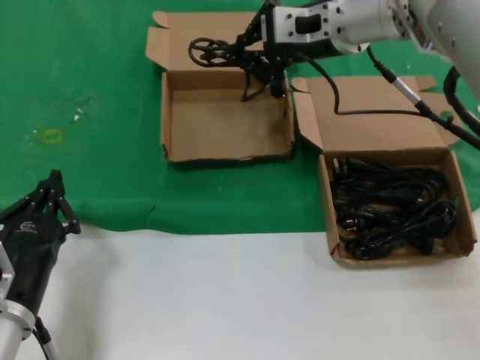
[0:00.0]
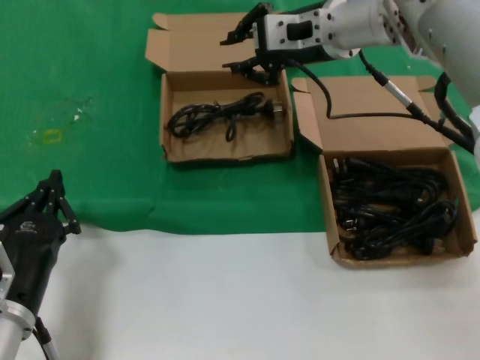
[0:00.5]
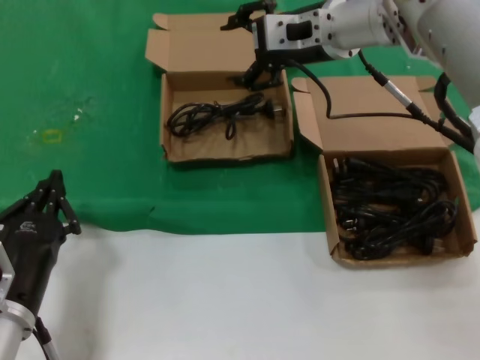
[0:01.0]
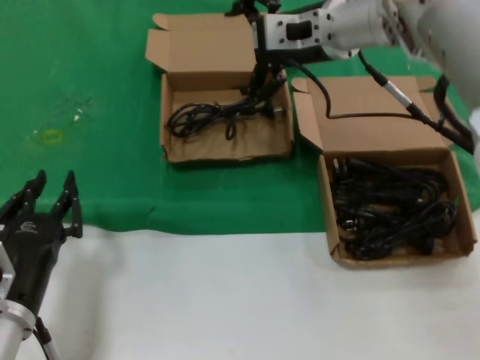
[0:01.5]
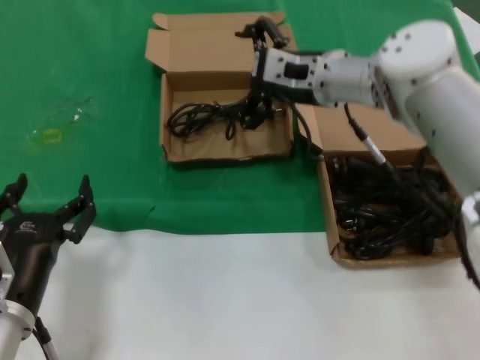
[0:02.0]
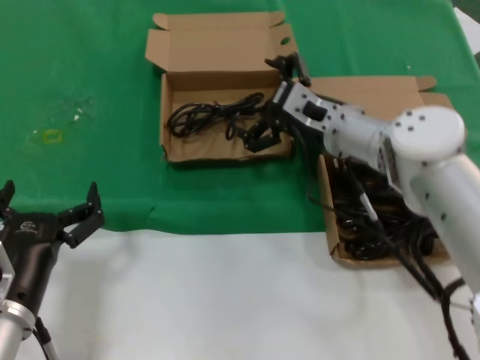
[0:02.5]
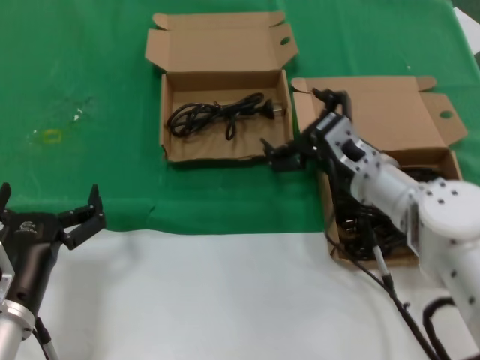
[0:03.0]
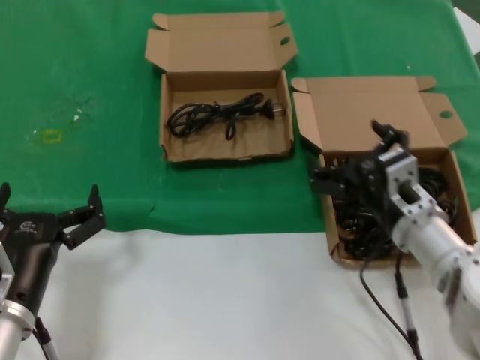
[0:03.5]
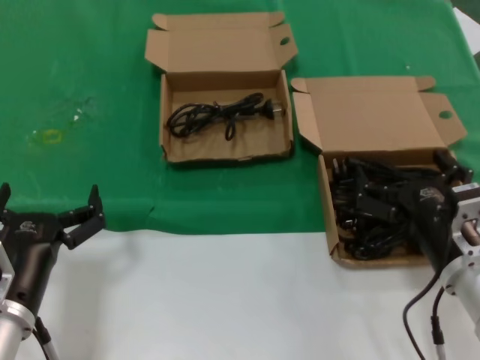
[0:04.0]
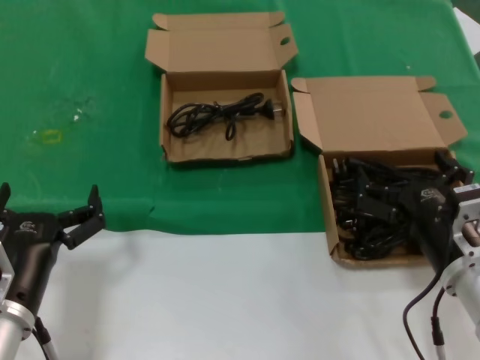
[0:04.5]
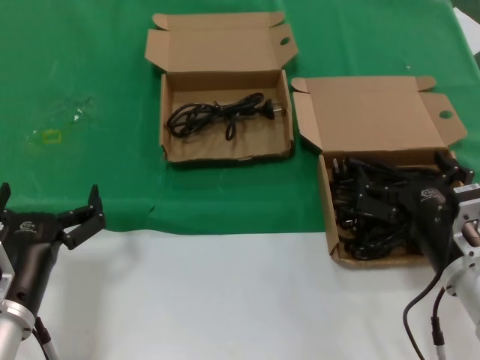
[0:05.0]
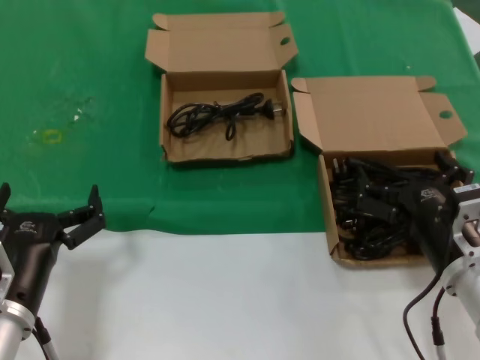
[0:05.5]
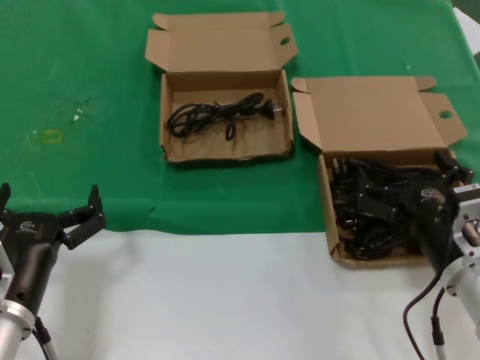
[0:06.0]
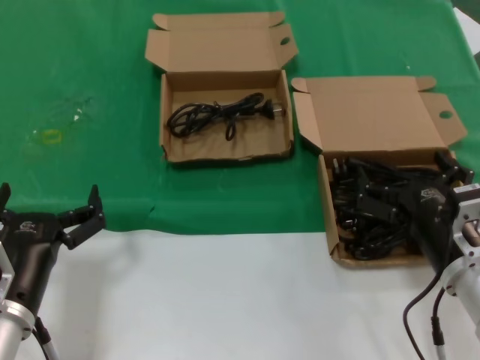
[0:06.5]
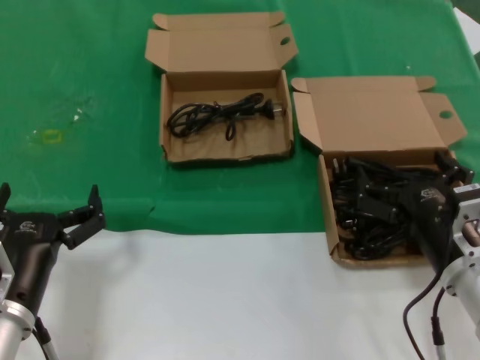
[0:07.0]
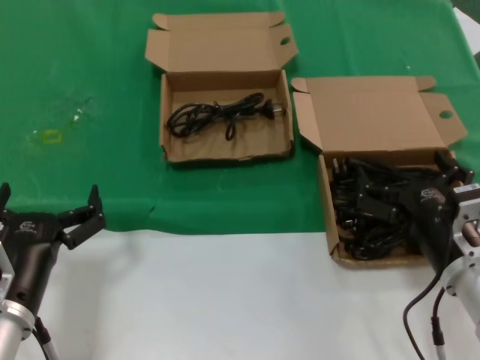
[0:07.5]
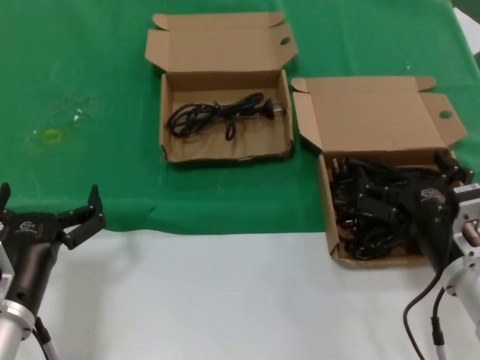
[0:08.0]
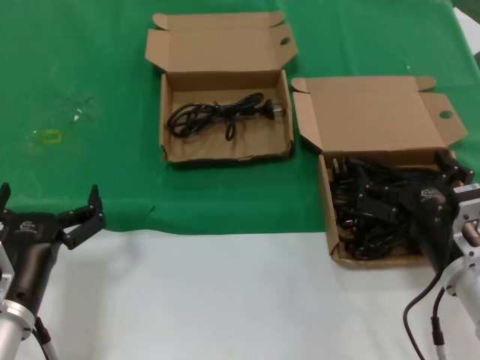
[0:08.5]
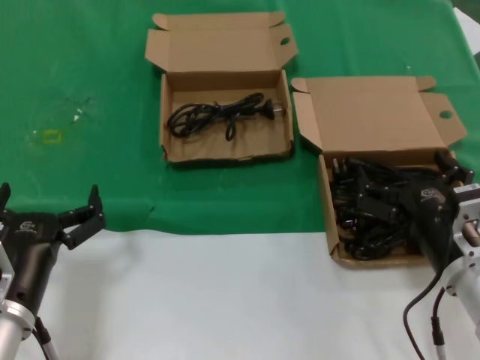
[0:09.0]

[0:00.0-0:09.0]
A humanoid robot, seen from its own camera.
Task of the whole recording: take the parts from the box containing them and put them into an empty box.
0:00.0 to 0:02.0: The right hand is displaced downward by about 10 cm.
0:02.0 to 0:04.5: The right hand moves backward, downward and to the right, about 30 cm.
0:04.5 to 0:09.0: Both hands stay put.

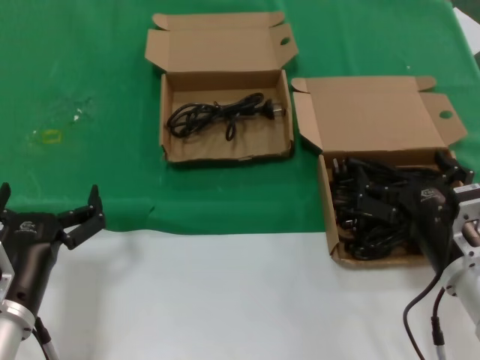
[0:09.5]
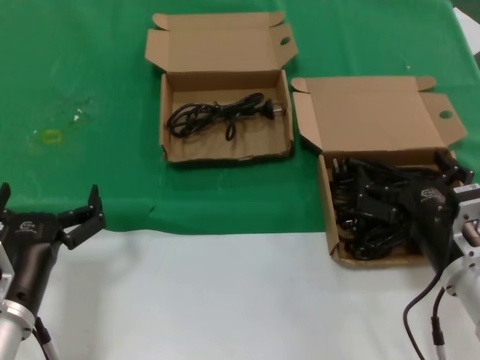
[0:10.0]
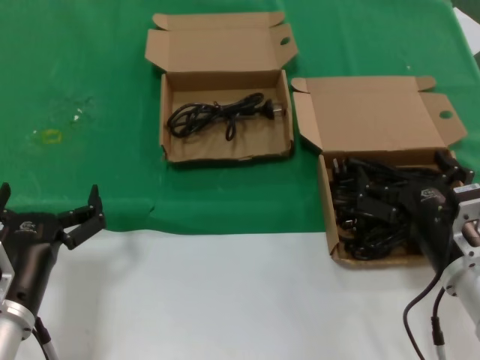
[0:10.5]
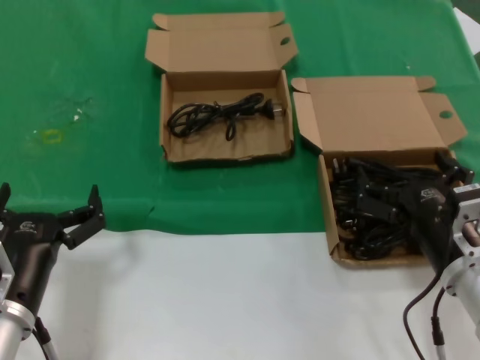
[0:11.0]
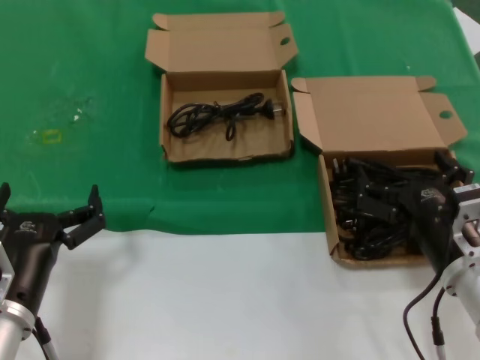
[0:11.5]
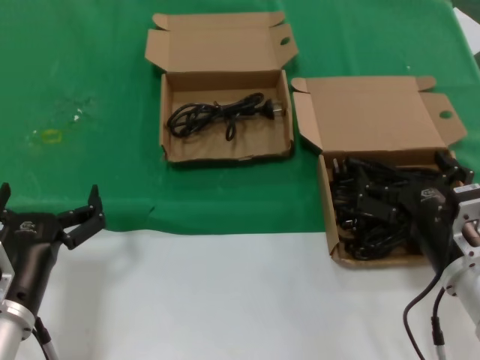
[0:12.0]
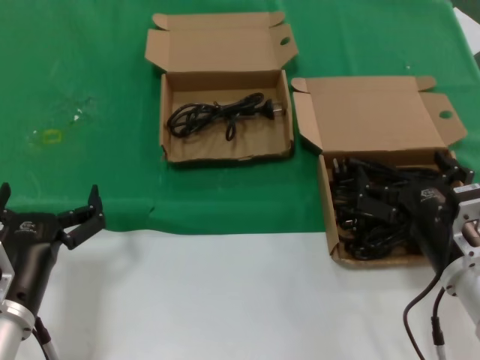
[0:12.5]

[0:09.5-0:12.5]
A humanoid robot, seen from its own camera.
Task of the whole recording: take the parts from the box containing them and put them into an empty box.
0:09.5 to 0:12.5: The two hands keep their place.
